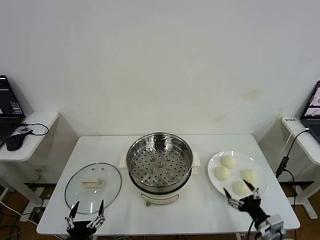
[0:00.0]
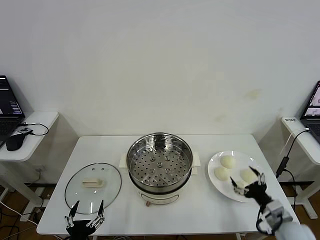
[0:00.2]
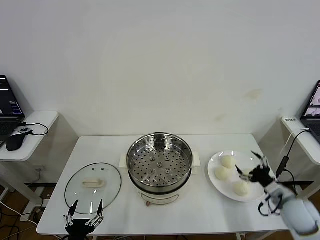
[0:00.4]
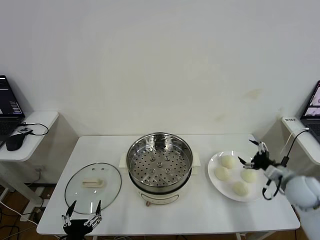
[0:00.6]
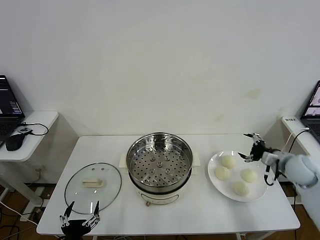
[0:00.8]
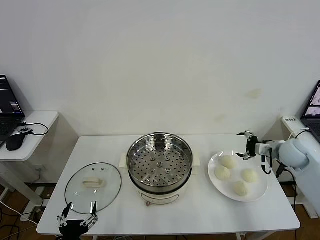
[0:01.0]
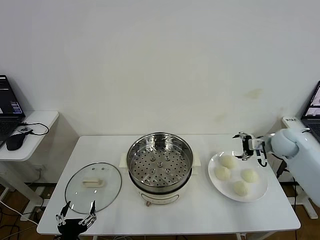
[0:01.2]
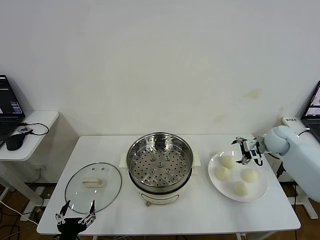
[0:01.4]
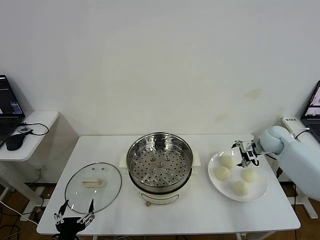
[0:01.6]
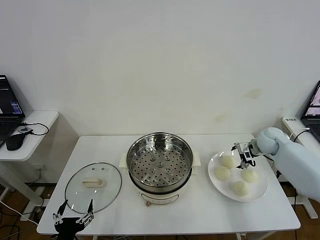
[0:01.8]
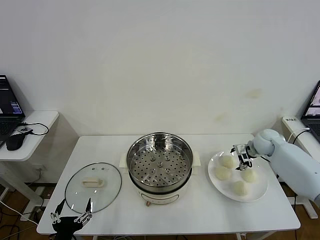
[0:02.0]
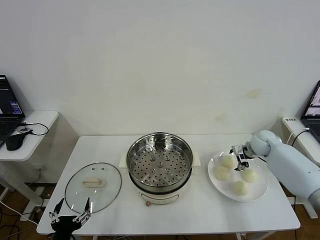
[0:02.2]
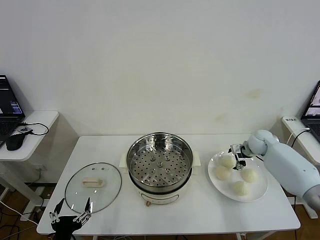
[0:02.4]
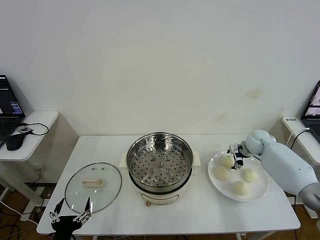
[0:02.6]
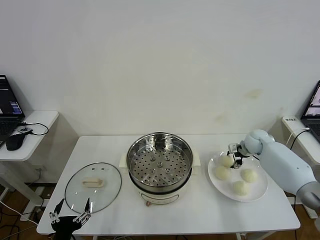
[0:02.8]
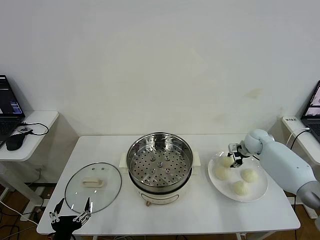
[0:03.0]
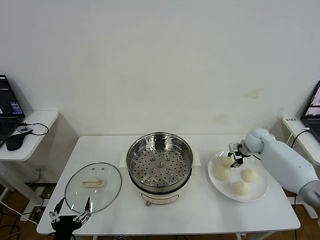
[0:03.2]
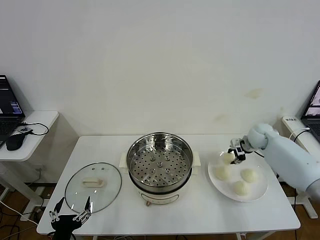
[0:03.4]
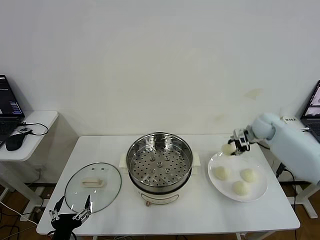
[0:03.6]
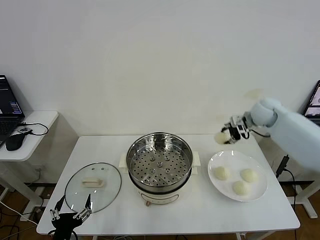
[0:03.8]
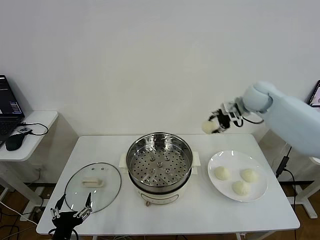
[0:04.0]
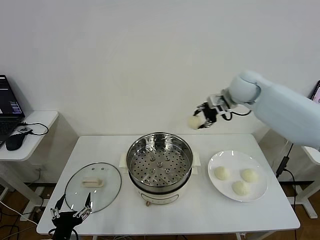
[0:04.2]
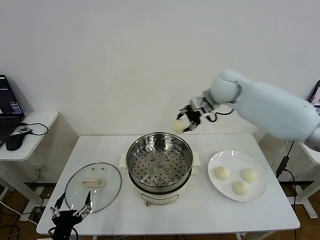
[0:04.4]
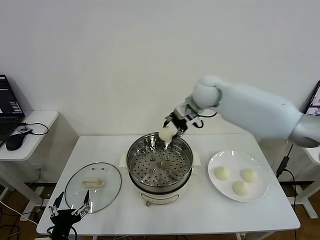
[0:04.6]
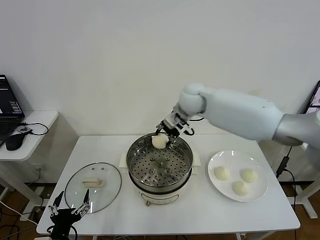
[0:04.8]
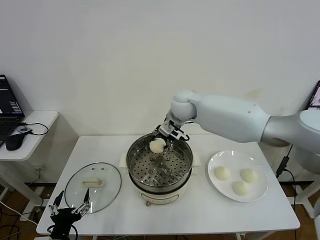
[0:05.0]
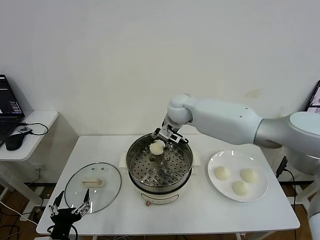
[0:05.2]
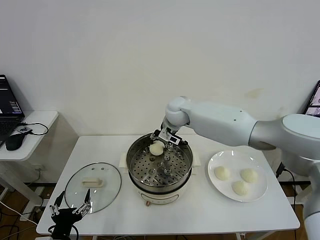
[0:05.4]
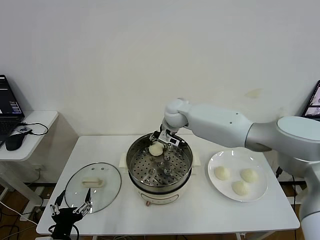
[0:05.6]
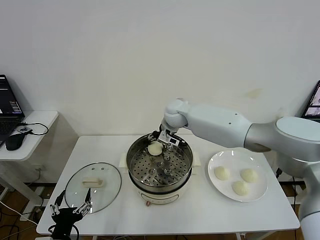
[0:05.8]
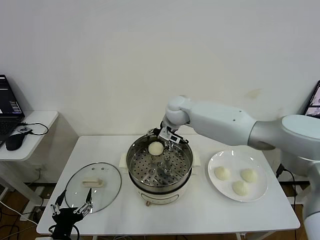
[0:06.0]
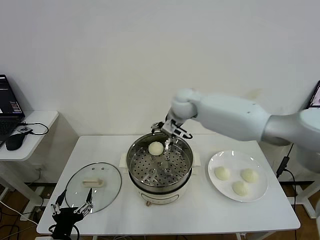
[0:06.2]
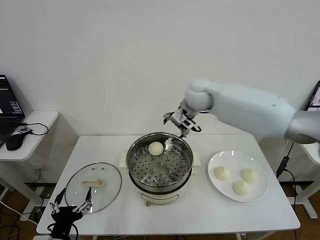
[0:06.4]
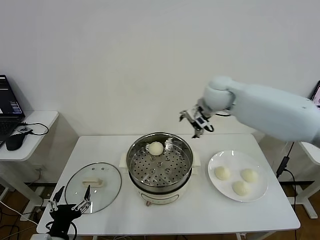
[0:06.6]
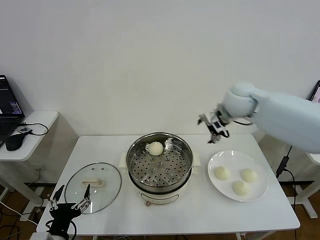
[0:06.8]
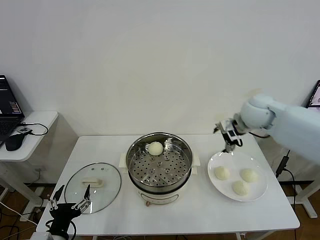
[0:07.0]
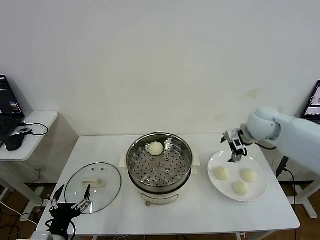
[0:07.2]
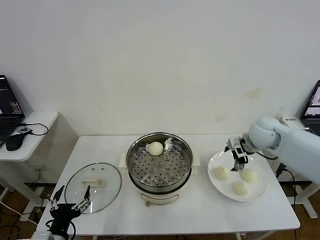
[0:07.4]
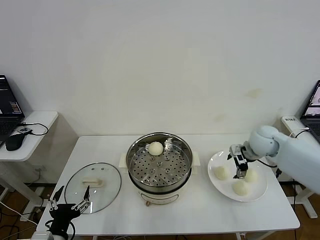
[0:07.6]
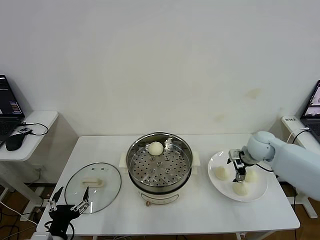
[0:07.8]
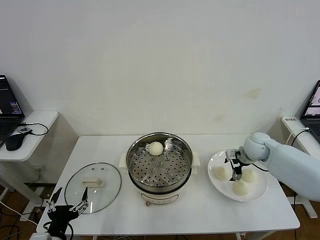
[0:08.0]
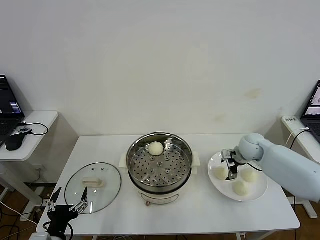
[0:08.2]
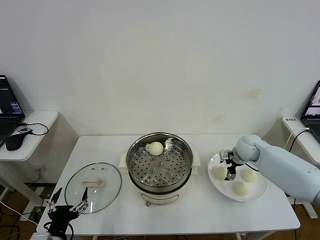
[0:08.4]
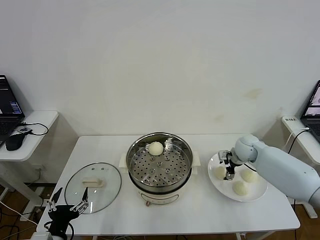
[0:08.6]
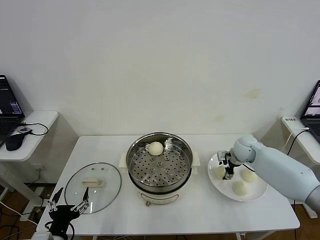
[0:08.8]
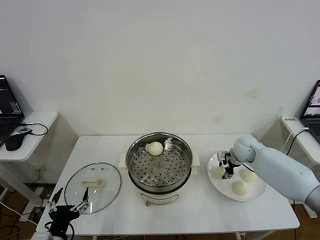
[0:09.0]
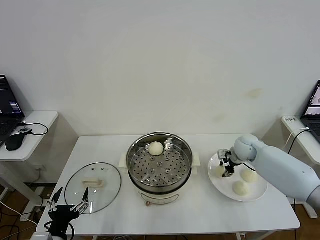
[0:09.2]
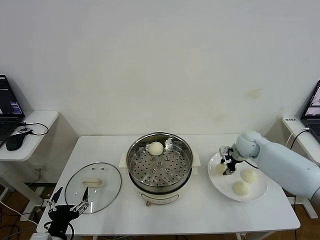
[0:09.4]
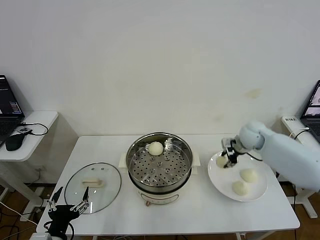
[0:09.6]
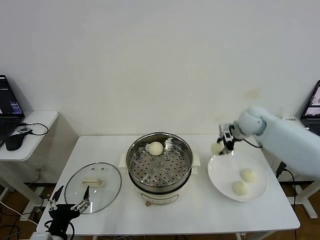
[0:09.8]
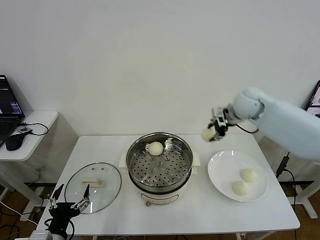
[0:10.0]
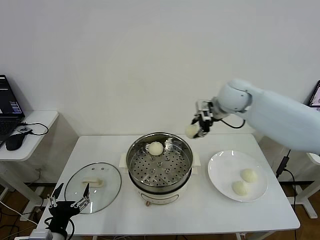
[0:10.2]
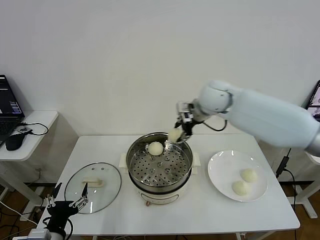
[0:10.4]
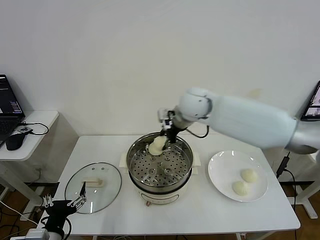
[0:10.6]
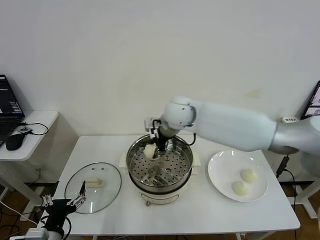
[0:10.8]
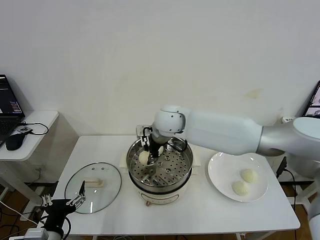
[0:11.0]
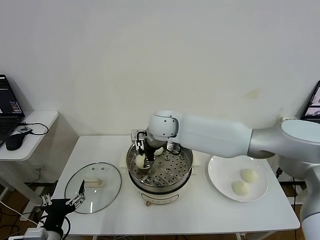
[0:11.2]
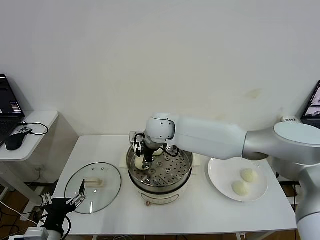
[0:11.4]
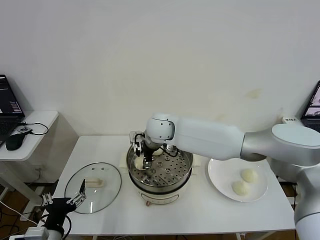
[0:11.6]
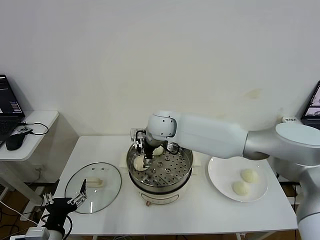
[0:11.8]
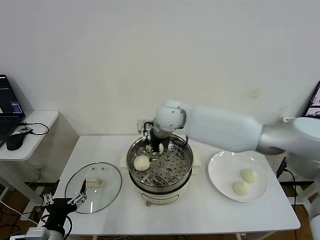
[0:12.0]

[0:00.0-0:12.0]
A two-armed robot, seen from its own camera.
Step, 0.0 to 2.8 s: Grasp the baozi in the plate with right gripper.
Step, 3.0 to 6.0 s: Place the baozi on the steamer with right gripper.
Step, 6.2 to 9.2 s: Grasp the baozi in the plate with right gripper.
Step, 9.4 to 11.6 s: Place the baozi on the steamer with right gripper.
1.6 to 3.0 s: The right gripper shifts by about 5 cm, and closes.
3.0 to 4.4 s: The right gripper goes roughly 35 cm upward and to the left.
4.4 to 6.0 s: The right gripper is displaced to the left and downward by approximately 10 cm, and opens its fingers.
6.0 to 7.6 s: The right gripper travels to the right by roughly 30 cm.
7.6 to 9.0 s: The right gripper travels downward by about 5 cm, and closes its fingers.
9.0 to 10.4 s: The right gripper shifts roughly 30 cm upward and to the left.
10.4 to 12.0 s: The right gripper goes about 10 cm to the left, and opens up.

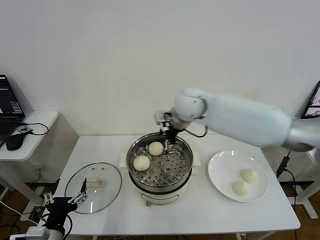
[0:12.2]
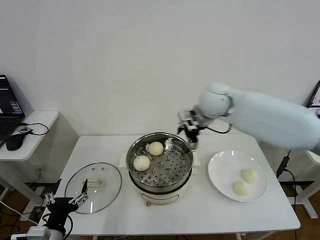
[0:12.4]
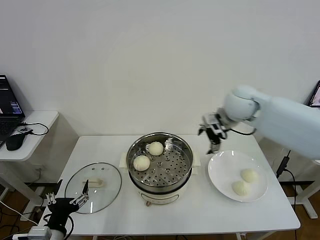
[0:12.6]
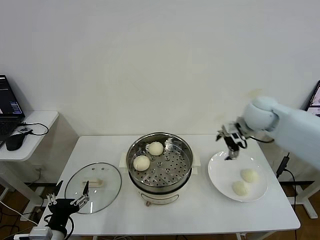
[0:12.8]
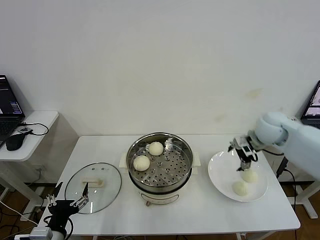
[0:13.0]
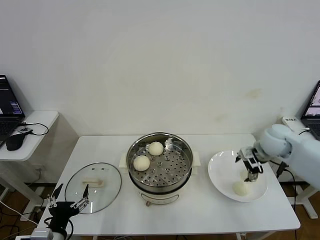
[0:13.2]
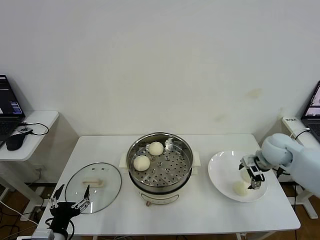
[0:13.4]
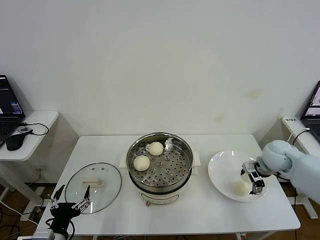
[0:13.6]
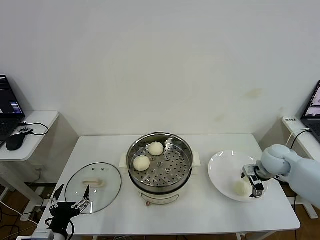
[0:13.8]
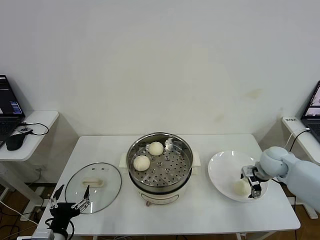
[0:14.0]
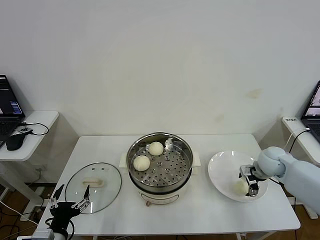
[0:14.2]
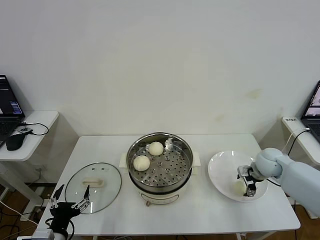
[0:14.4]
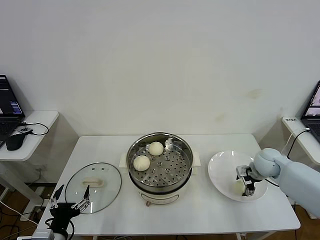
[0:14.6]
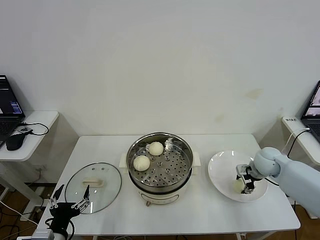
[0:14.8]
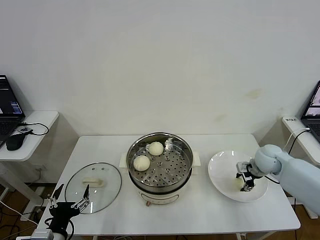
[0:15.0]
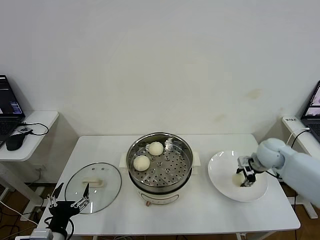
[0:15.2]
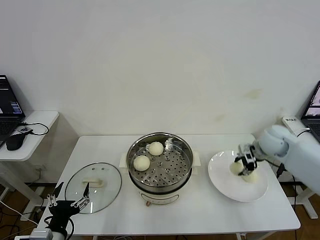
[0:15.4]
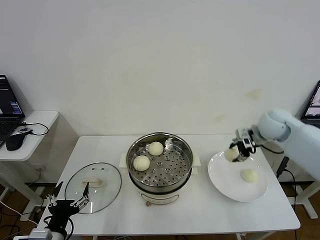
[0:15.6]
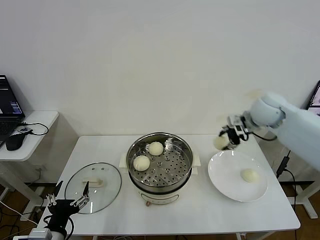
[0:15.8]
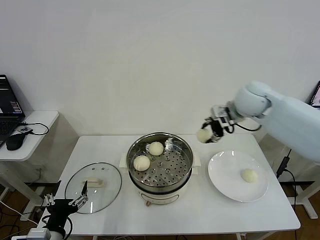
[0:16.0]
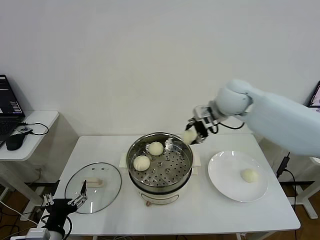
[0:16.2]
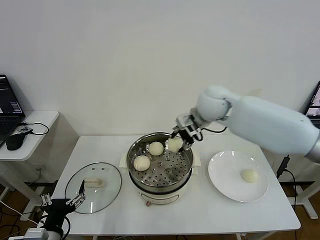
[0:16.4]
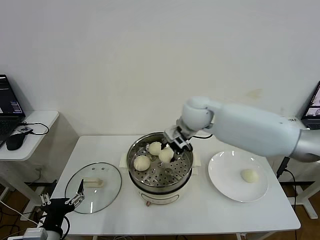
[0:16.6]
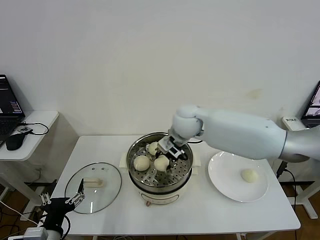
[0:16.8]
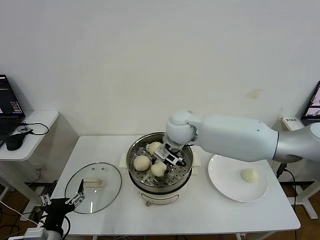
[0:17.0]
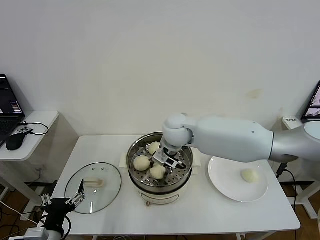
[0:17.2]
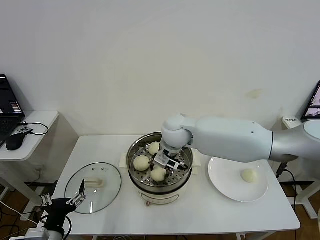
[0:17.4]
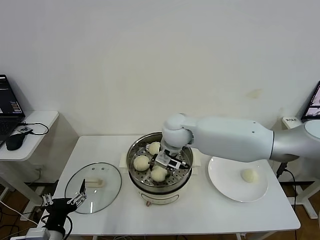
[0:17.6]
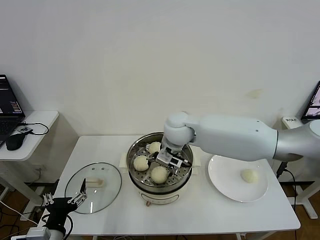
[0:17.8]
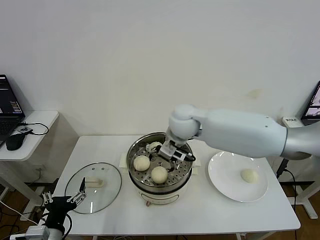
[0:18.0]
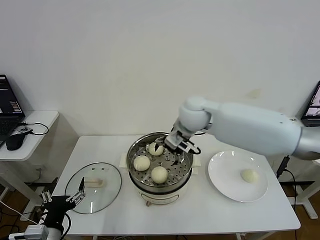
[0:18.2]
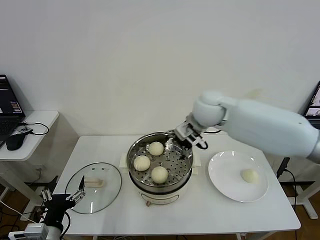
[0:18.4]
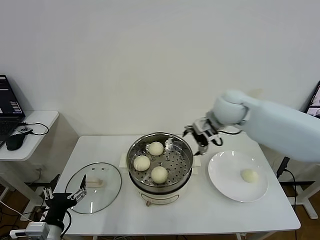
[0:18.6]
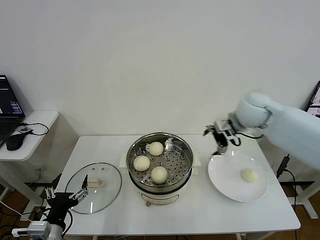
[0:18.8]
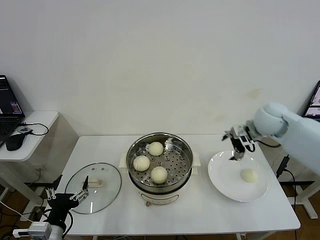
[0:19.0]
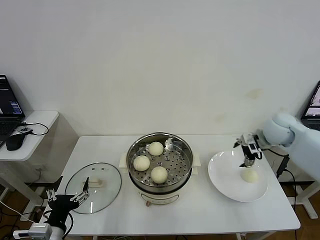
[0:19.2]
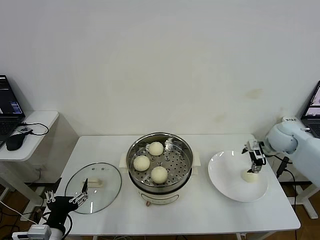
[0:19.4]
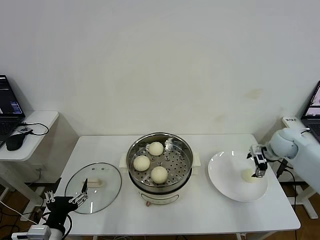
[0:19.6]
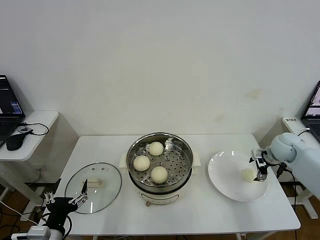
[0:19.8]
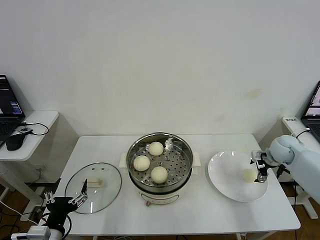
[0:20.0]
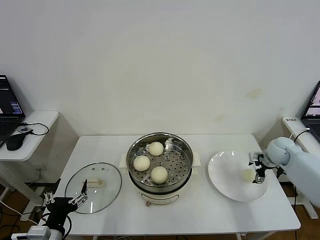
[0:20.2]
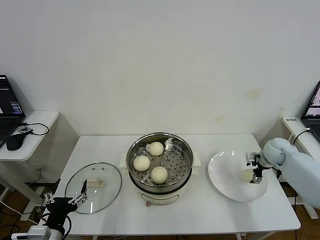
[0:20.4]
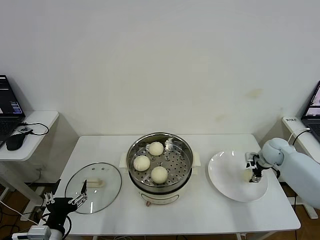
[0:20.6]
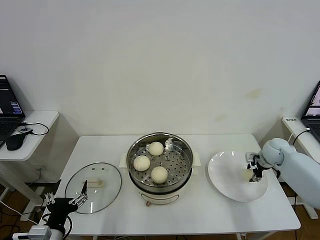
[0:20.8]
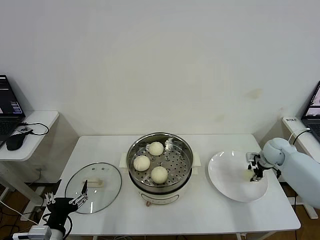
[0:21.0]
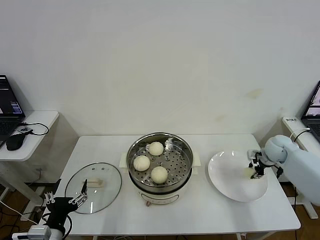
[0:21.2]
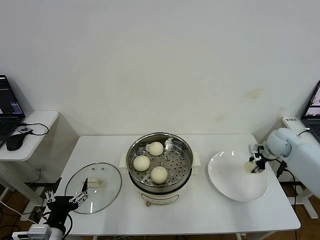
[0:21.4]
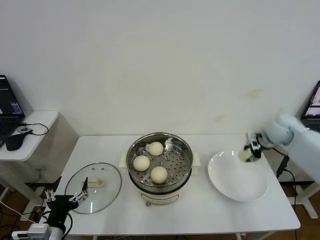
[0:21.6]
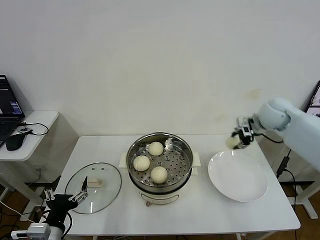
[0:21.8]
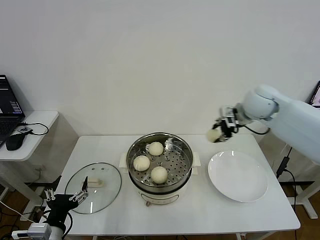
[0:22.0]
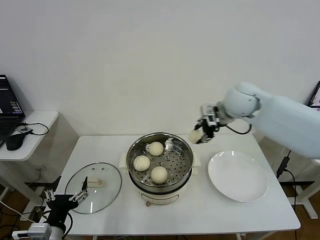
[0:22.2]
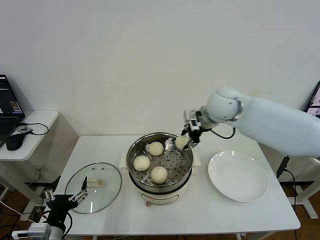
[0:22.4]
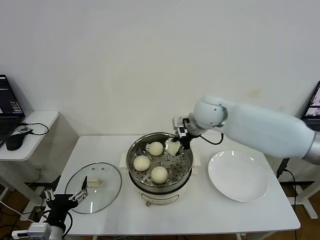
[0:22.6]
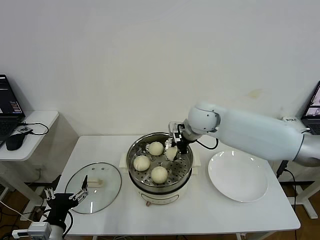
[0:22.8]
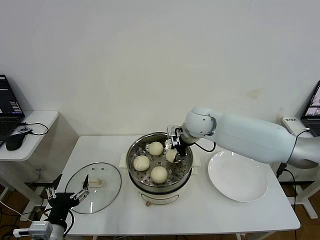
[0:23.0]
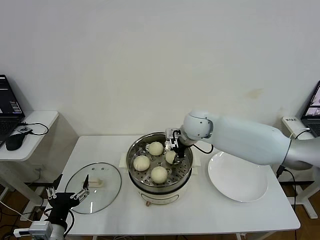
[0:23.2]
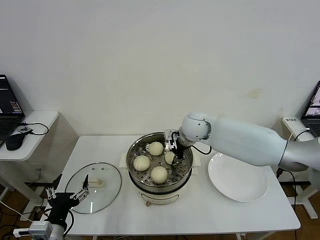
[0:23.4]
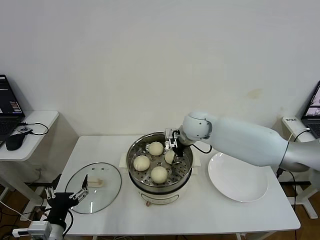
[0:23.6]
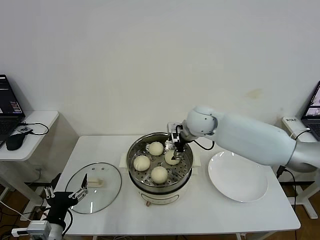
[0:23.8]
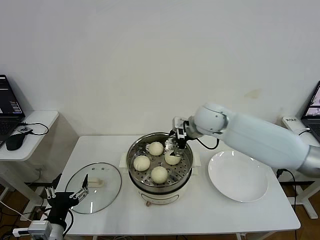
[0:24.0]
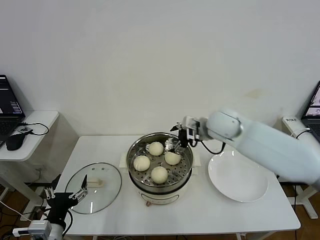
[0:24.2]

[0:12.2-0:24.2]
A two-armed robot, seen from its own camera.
Step, 12.2 to 14.8 s: Grasp the baozi in the plate with right gripper.
Step, 15.0 to 17.6 s: Place the baozi on the steamer with right gripper.
Step, 17.8 to 21.0 s: Grasp the baozi in the plate with right gripper.
Step, 21.4 to 23.8 s: Place the baozi on the steamer with right gripper.
12.2 to 13.8 s: The right gripper goes about 35 cm to the right and downward.
13.8 to 15.2 s: The right gripper closes its fingers.
15.2 to 16.6 s: The right gripper is displaced to the left and upward by some 30 cm.
16.6 to 18.2 s: The right gripper opens.
18.2 to 19.8 s: The right gripper is displaced to the right and downward by about 35 cm.
19.8 to 21.2 s: The right gripper closes.
21.2 to 22.6 s: The right gripper travels to the left and upward by about 35 cm.
22.6 to 24.2 s: The right gripper shifts by some 5 cm, and opens up.
